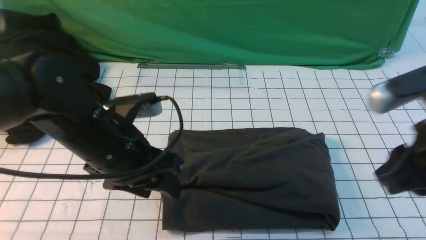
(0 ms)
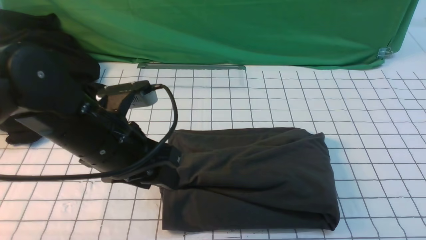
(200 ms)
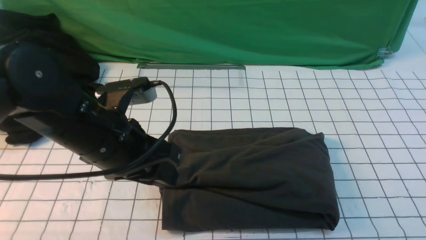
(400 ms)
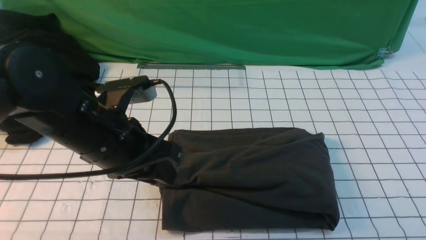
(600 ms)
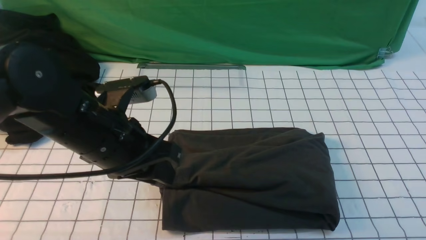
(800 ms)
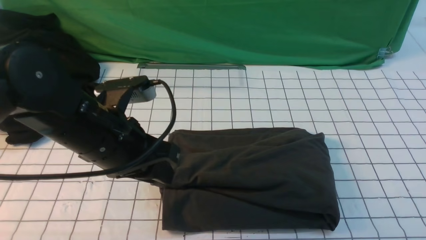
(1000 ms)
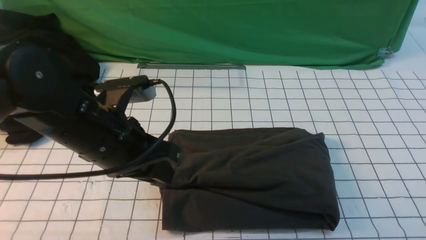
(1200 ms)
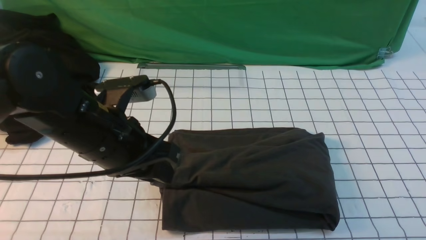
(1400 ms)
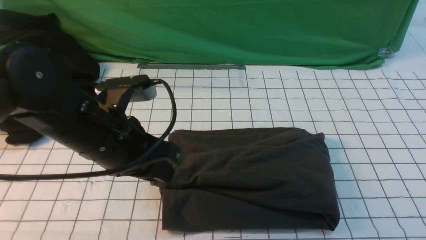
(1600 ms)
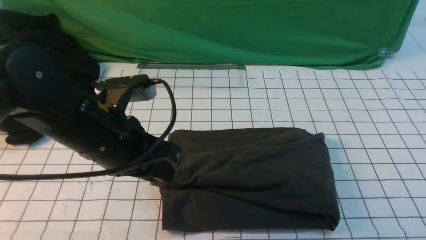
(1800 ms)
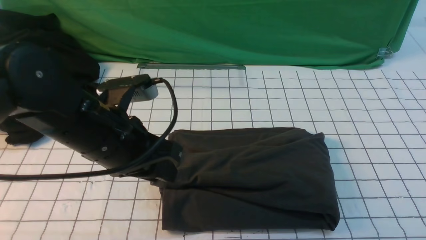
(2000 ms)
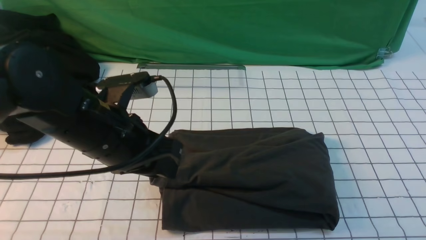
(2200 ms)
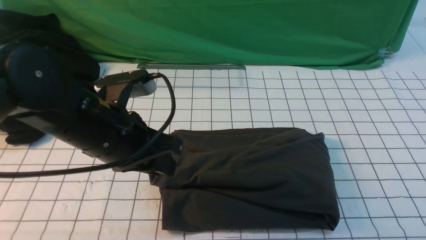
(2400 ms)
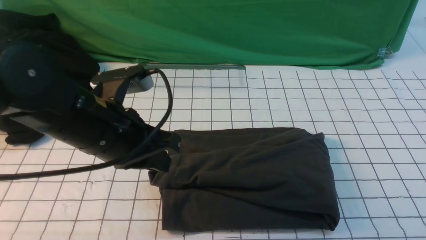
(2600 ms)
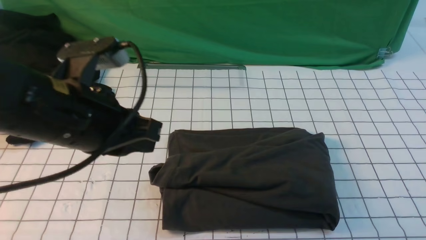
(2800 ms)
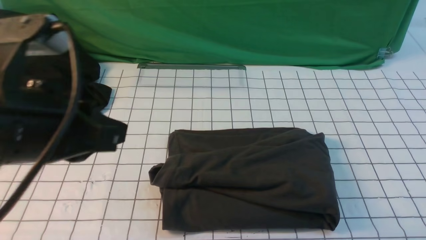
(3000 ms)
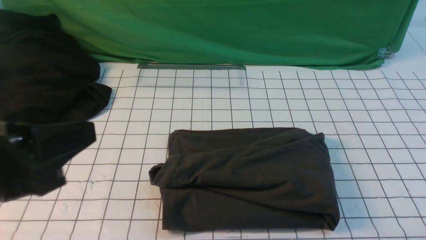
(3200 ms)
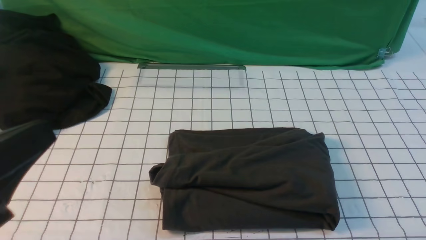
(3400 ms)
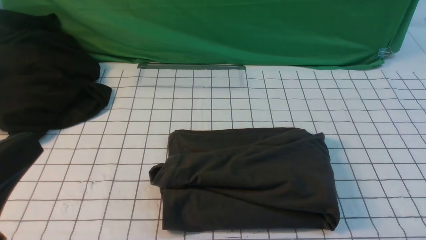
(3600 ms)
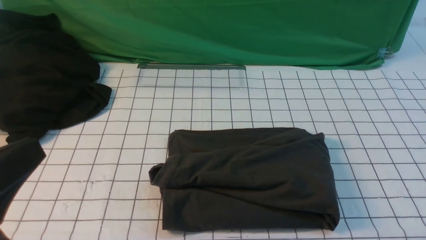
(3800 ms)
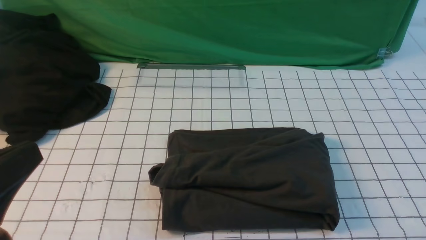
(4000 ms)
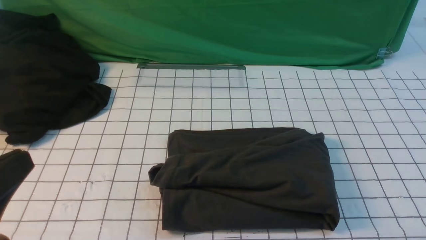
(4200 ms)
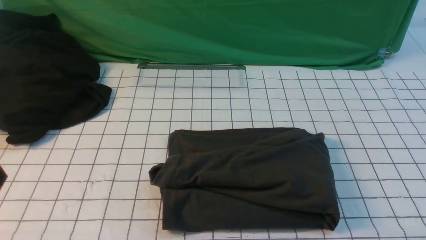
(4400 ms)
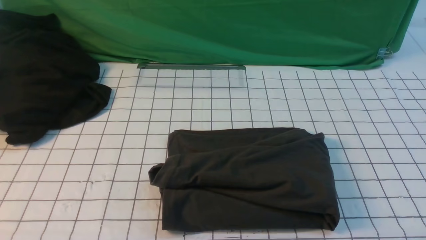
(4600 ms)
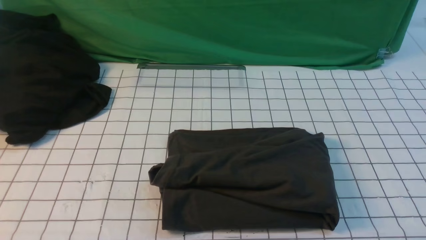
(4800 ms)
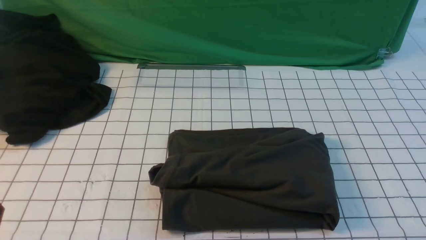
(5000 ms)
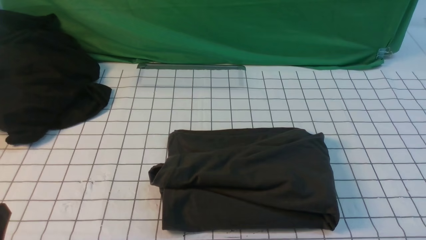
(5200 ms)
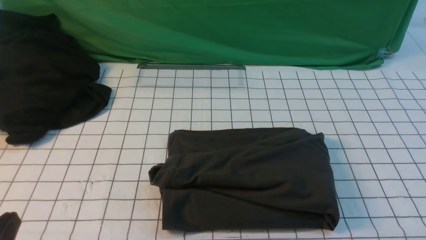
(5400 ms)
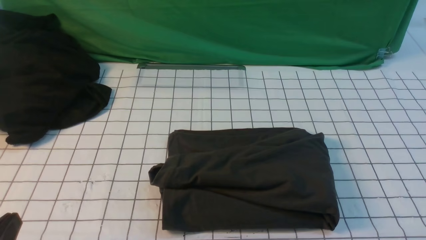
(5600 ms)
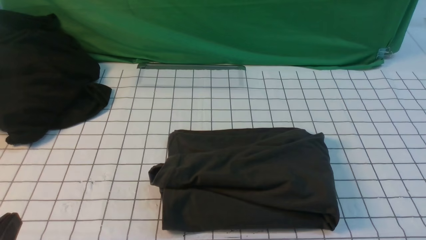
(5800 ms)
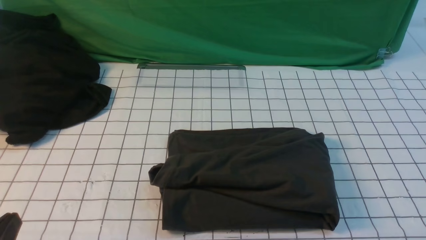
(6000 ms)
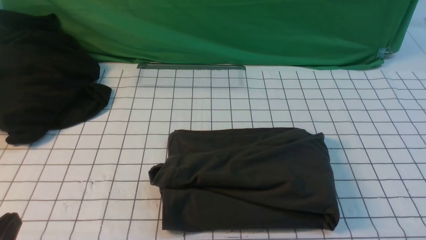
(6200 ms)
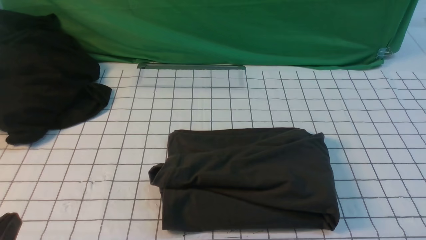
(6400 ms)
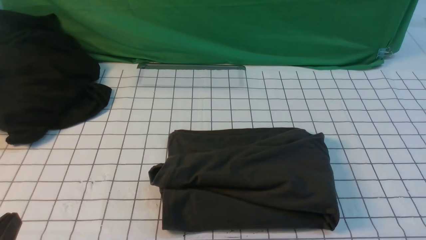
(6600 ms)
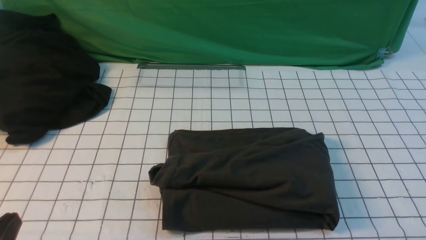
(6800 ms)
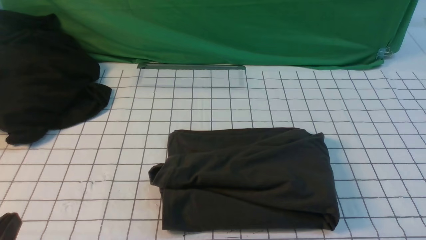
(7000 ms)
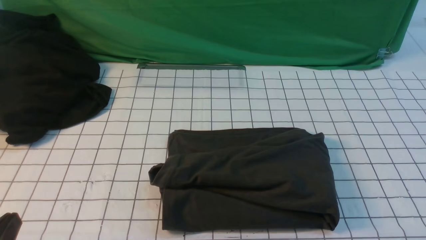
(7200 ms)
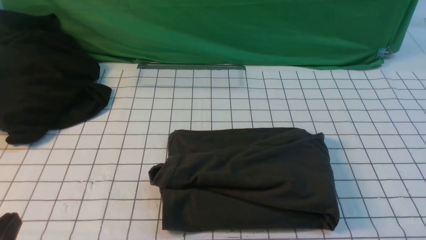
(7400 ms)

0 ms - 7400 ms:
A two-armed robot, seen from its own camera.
0 ms - 1400 ms: The right gripper moves backward and to the right, about 15 cm. Meanwhile the left gripper closes its fingers.
1400 ms - 3000 ms: The right gripper travels downward by some 10 cm. The left gripper travels backward and upward by approximately 10 cm, and closes.
3000 ms - 4400 ms: The left gripper heads backward, downward and to the left, covering approximately 15 cm.
4400 ms - 6000 ms: The left gripper heads downward, covering some 10 cm.
6000 ms - 7400 ms: The two grippers keep their place.

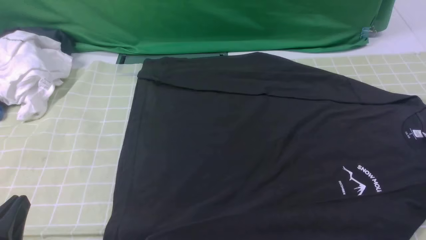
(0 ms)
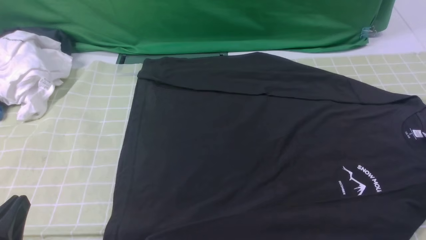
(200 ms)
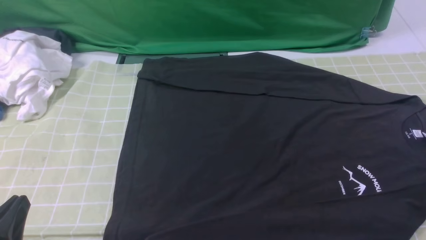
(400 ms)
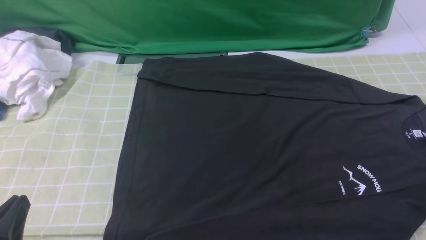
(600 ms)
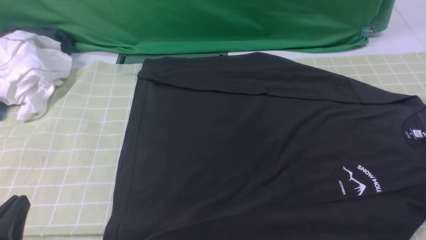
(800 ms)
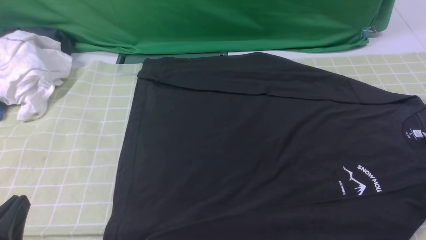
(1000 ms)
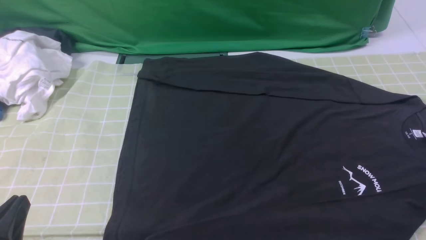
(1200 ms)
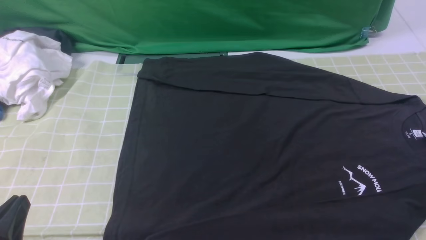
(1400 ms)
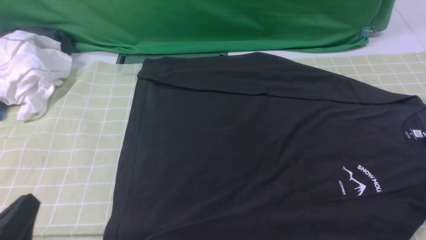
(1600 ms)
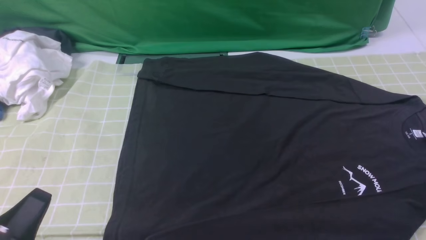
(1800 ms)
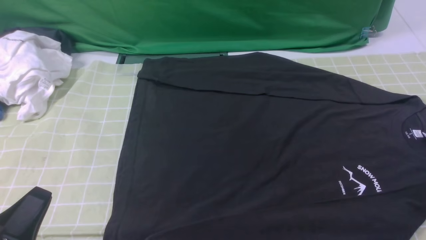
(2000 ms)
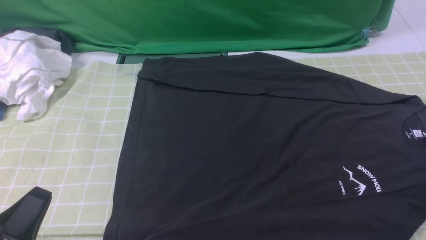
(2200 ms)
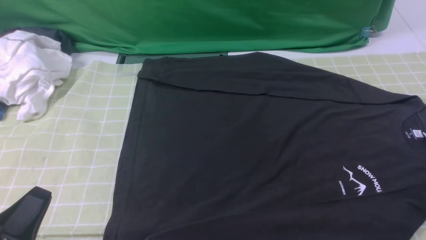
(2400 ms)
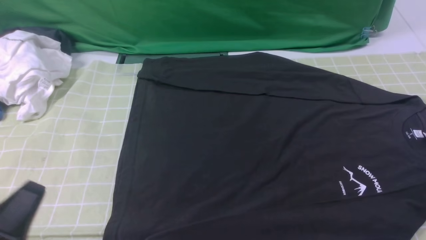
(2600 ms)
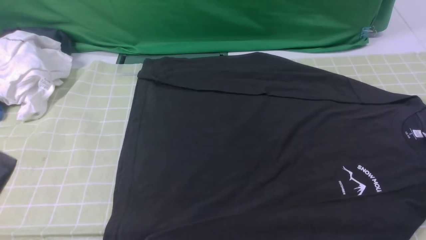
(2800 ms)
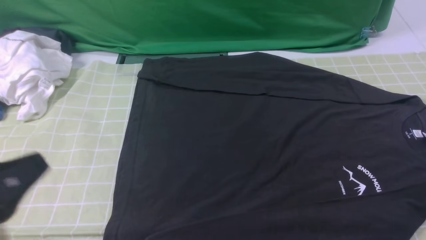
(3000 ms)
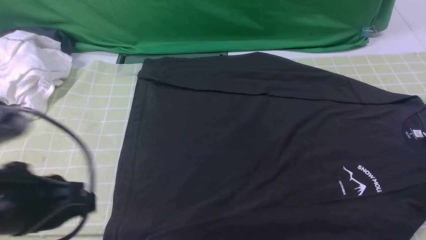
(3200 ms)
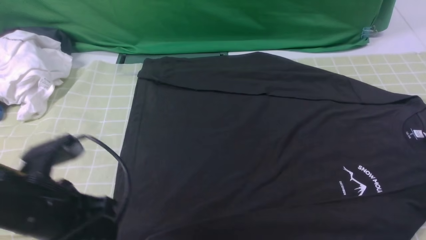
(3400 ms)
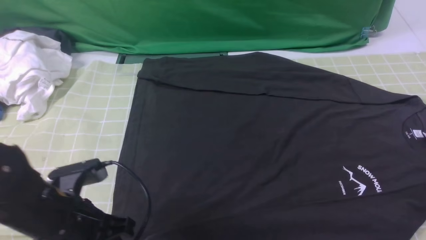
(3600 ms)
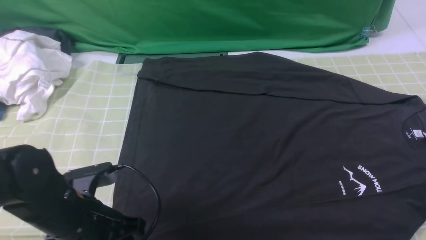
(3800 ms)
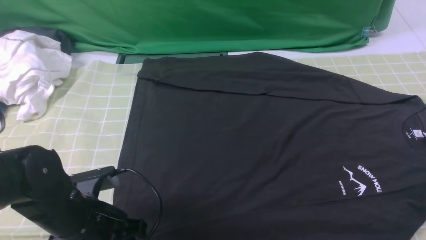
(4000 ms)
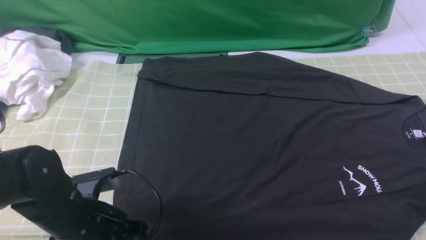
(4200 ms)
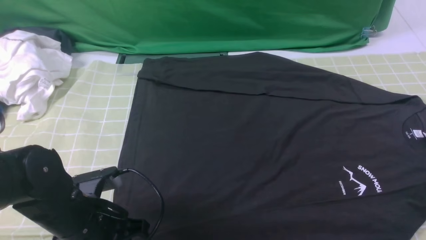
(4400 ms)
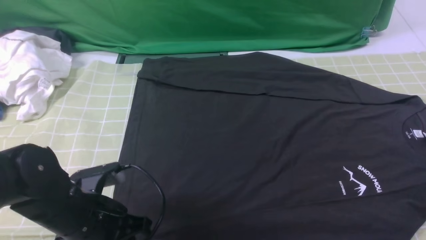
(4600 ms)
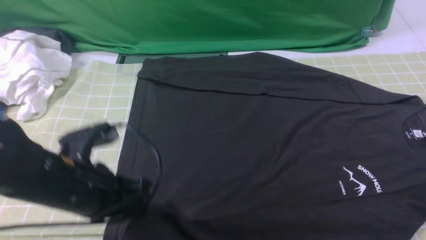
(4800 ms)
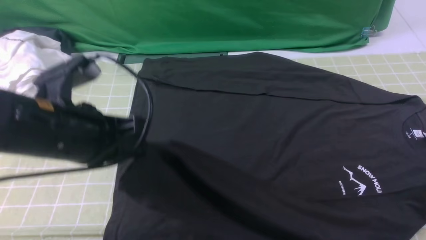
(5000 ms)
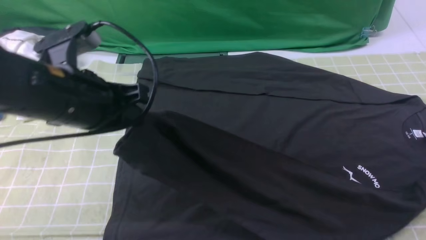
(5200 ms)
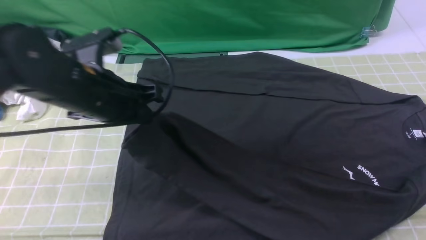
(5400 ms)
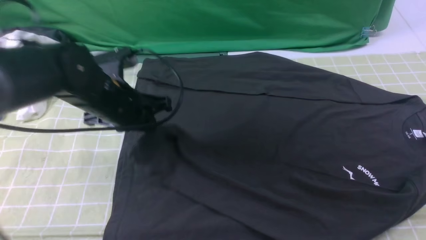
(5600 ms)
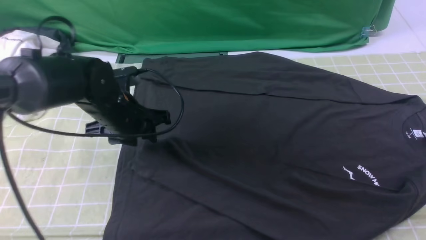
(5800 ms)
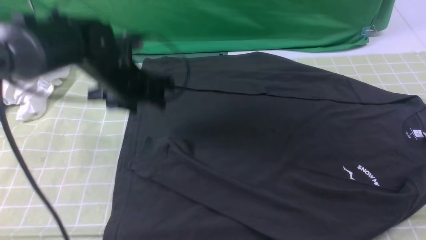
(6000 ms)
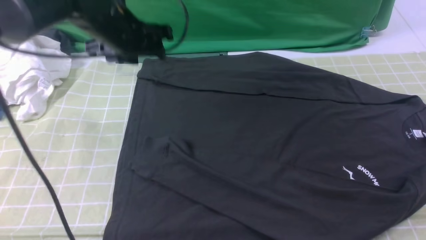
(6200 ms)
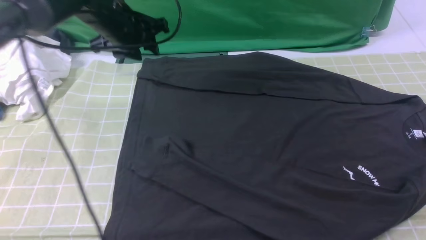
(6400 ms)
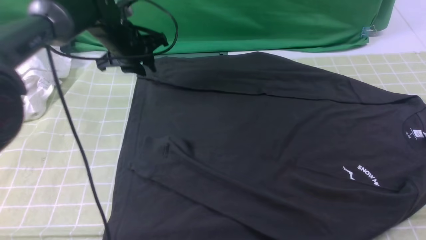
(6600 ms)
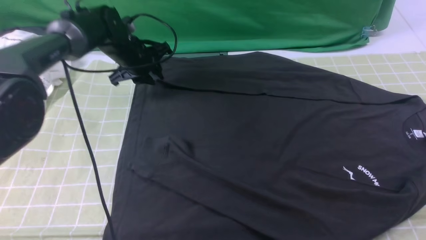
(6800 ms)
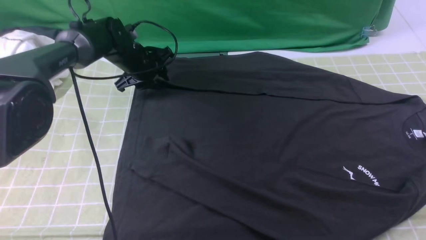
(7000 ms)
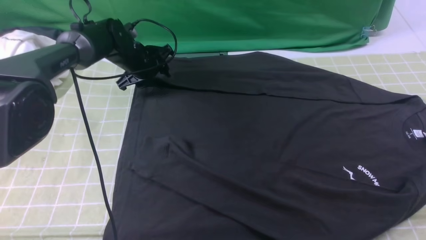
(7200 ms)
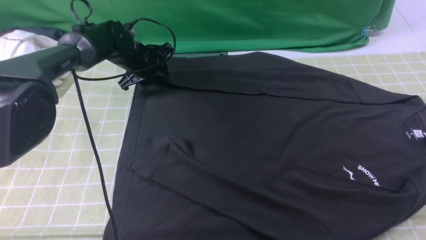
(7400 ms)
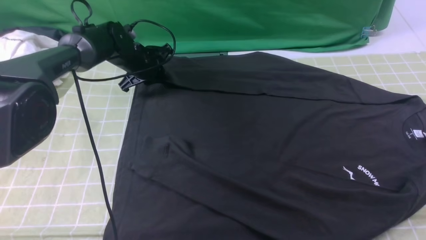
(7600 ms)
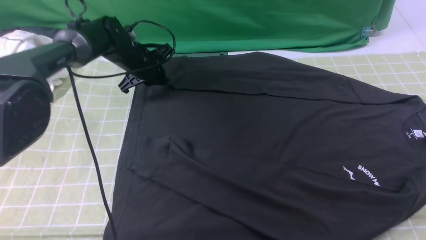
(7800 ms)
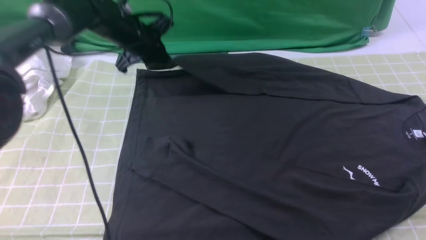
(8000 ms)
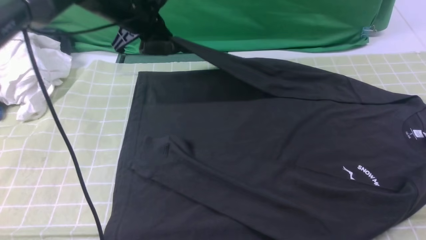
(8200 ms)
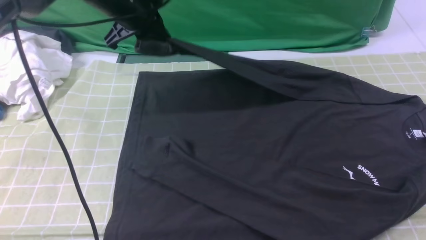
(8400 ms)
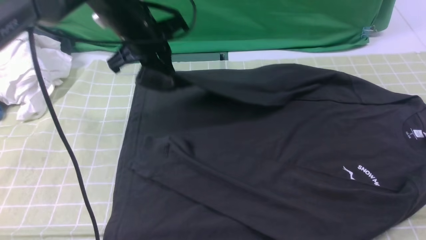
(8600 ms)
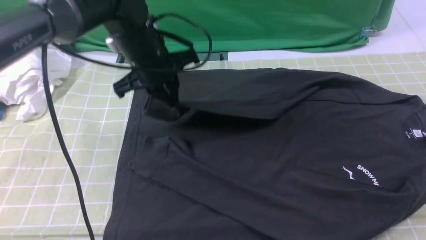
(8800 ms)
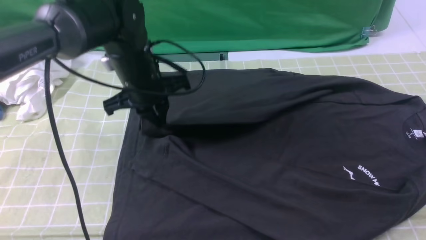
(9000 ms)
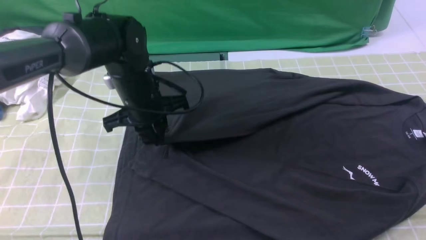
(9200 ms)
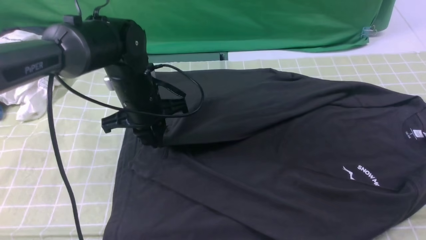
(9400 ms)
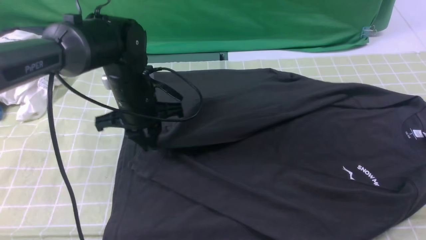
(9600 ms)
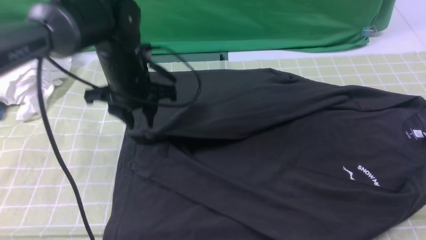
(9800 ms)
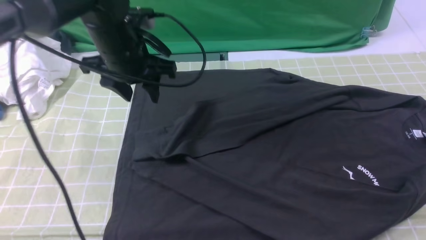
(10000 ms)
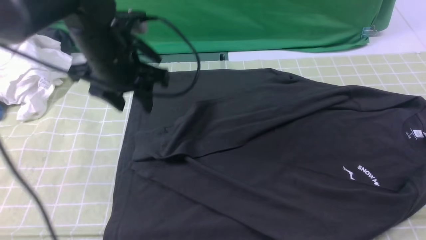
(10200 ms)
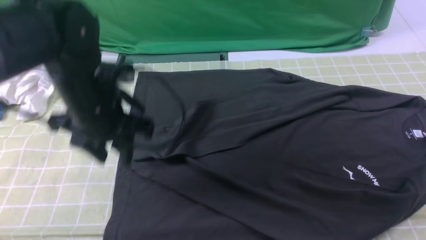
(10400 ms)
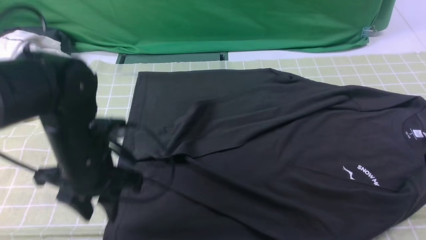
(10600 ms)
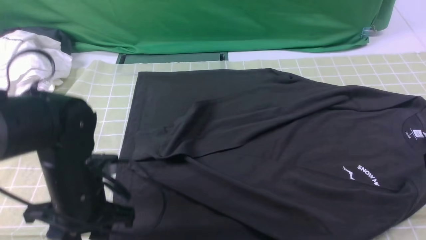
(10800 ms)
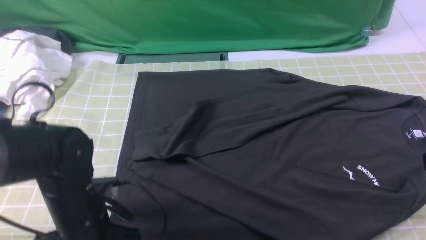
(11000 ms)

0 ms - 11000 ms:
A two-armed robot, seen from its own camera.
Step, 0 ms - 4400 ms: use the left arm to clamp the cuff closest to it.
Step, 4600 ms - 5800 ms: use the left arm to drag and place the cuff at the centered position on the left edge of the fabric.
Step, 6000 ms - 7600 ms: use the left arm to clamp the cuff farthest from it.
Step, 7800 ms - 10000 ms: use the left arm to drag and drop the cuff onto the cuff closest to the left arm.
1600 ms - 3200 ms: The left gripper moves upward and forward, about 10 cm.
3200 ms - 4800 ms: The left gripper heads forward, covering about 5 cm, moves roughly 10 cm downward and comes back, and opens, then closes again.
4800 ms - 6200 ms: The left gripper heads forward, covering some 20 cm, and opens its fingers.
6200 ms - 7800 ms: The left gripper is displaced downward and forward by roughly 15 cm, and closes its fingers.
7800 ms - 9400 ms: The left gripper travels backward by roughly 15 cm.
9400 ms - 11000 ms: The right gripper opens. Meanwhile the left gripper moves backward, some 15 cm, and opens.
